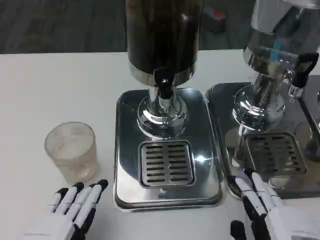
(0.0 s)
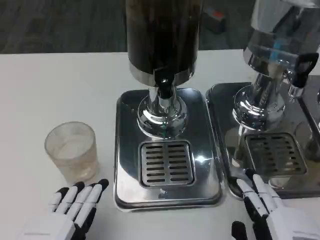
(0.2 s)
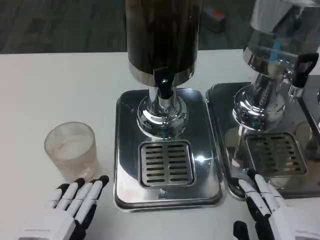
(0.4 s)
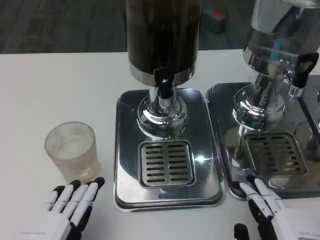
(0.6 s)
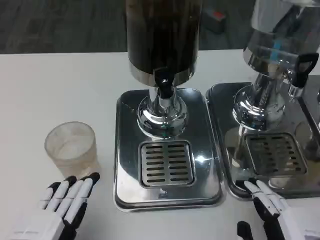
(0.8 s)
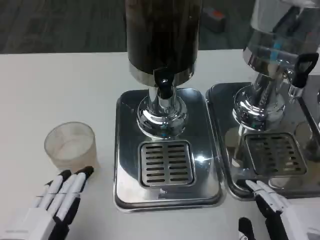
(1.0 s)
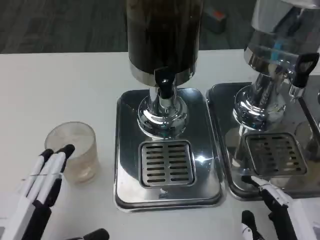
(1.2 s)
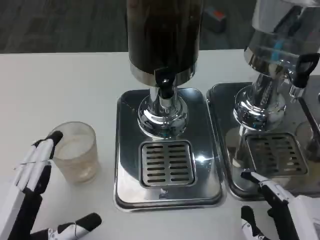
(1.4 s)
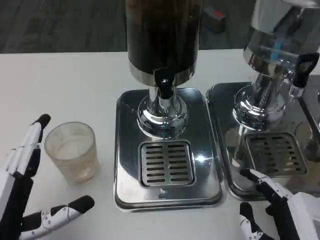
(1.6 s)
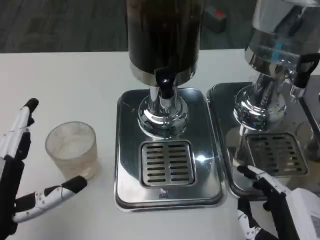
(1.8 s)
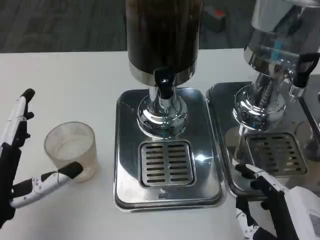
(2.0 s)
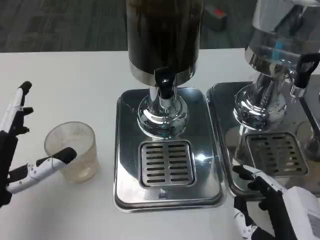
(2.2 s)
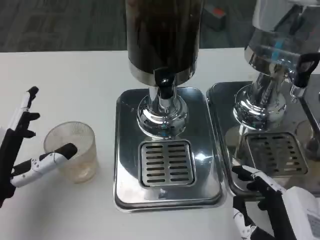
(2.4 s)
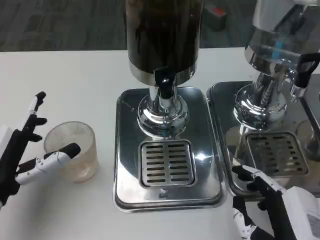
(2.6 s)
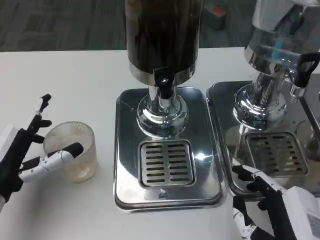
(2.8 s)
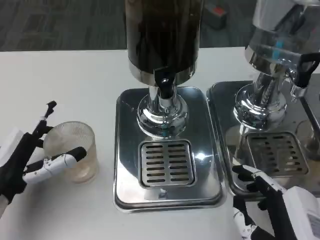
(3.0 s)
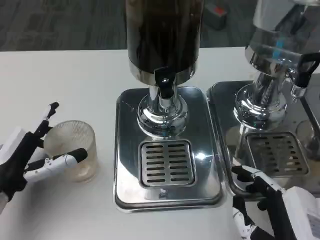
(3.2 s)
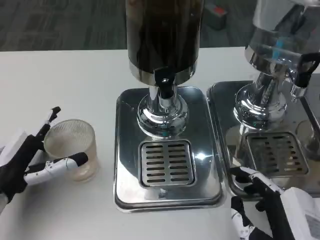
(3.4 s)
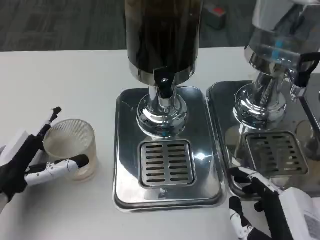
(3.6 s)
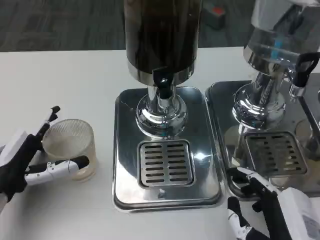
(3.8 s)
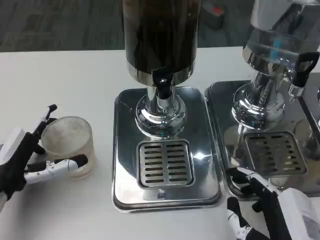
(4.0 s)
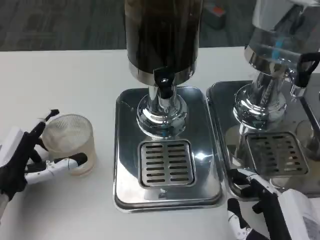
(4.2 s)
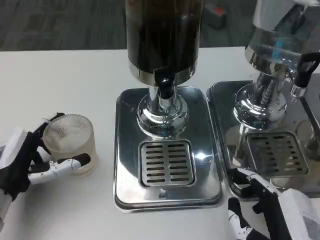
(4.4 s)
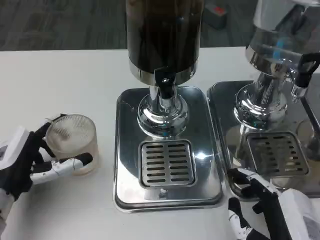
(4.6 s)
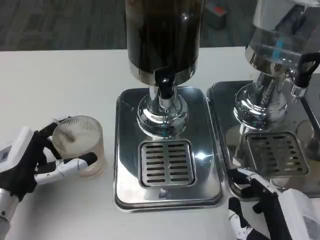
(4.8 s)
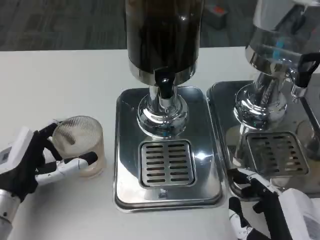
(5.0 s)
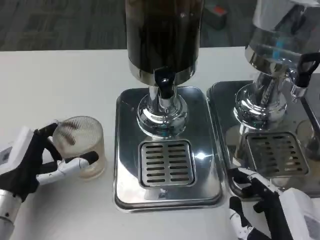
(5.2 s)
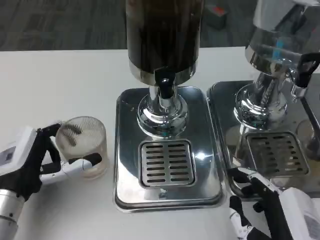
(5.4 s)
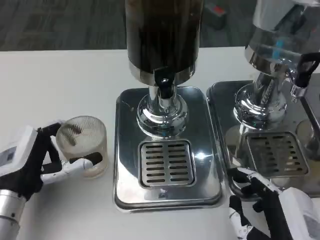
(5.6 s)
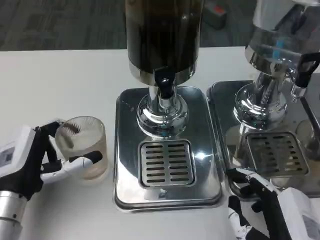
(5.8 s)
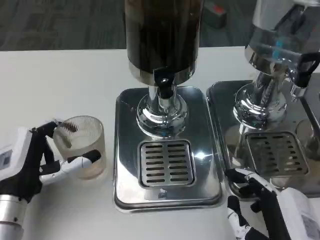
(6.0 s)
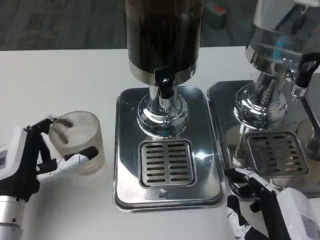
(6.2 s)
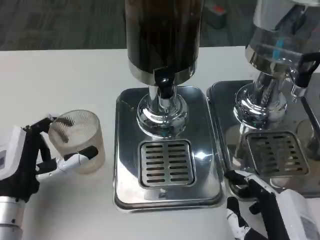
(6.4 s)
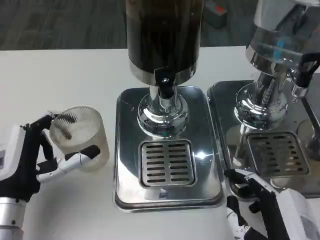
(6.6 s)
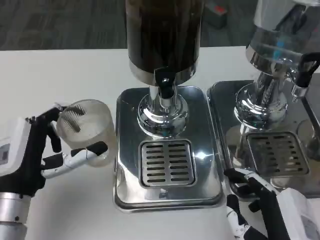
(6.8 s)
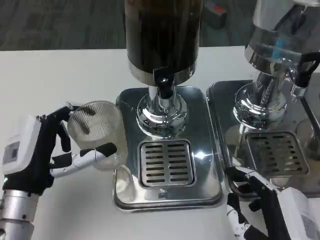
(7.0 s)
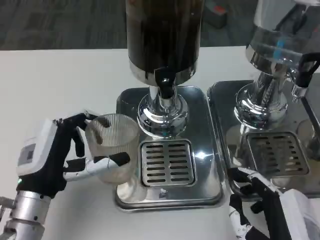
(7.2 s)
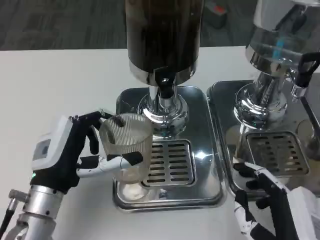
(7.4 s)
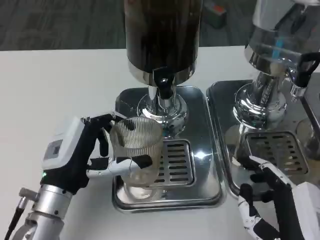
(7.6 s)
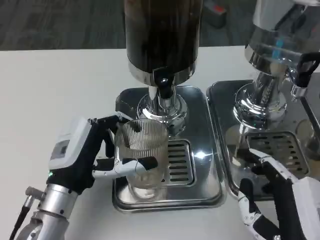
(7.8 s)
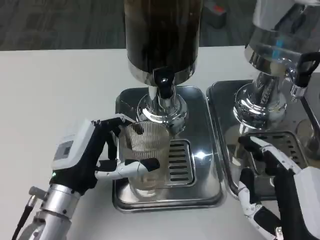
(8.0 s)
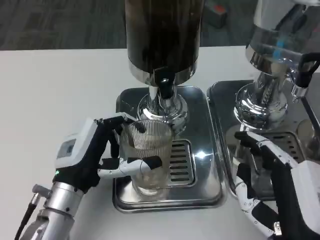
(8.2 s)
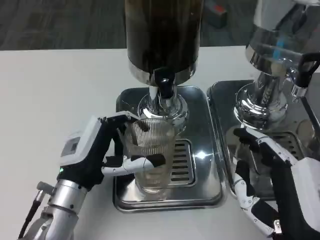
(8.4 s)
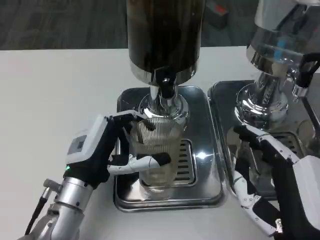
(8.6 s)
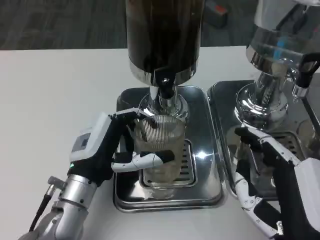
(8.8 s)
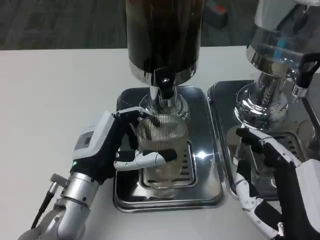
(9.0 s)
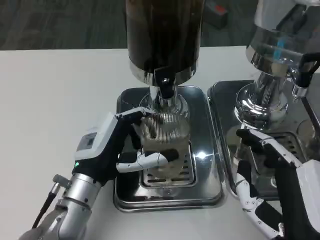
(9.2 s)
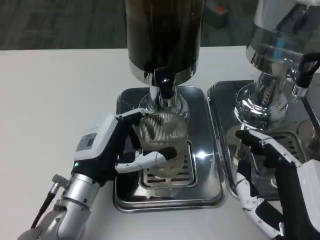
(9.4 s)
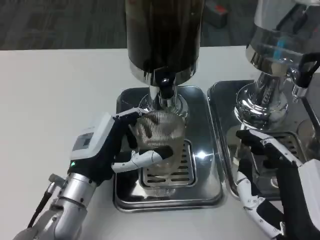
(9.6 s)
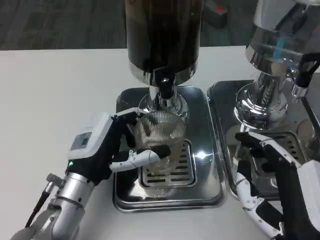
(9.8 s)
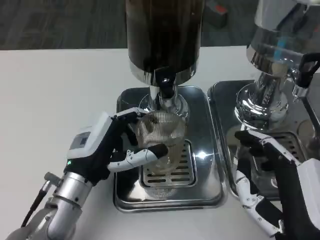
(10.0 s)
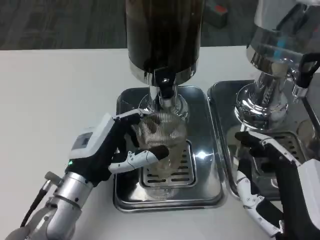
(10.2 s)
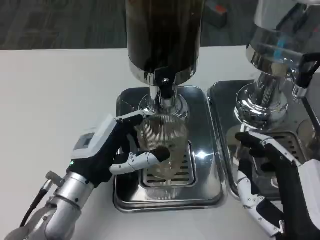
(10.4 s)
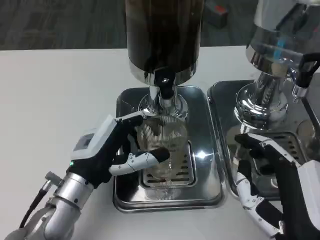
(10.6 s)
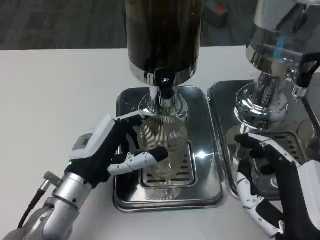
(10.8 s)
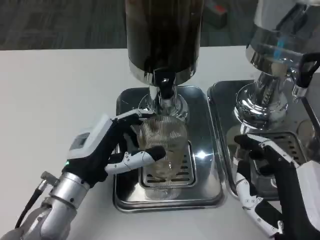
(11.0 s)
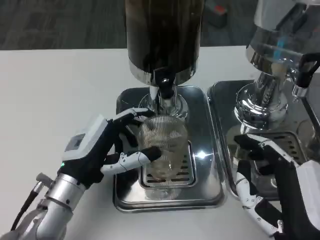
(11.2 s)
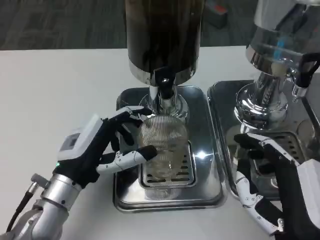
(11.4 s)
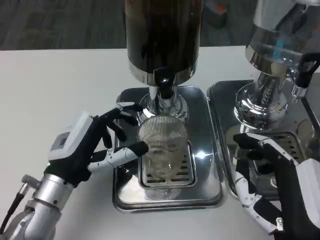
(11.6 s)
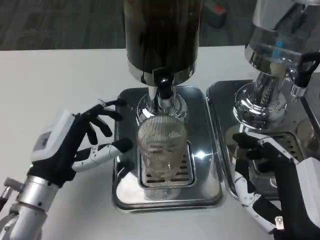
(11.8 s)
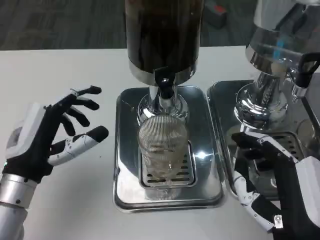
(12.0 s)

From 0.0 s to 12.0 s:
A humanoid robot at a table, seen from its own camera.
Task of the whole recording: Grasp the cup under the faucet to collect the drink, then remove the cup.
From 0.0 s to 1.6 s: The left hand ends up approximately 5 cm from where it was.
From 1.6 s to 3.0 s: The left hand shifts roughly 10 cm forward.
From 3.0 s to 6.0 s: The hands move only a little.
From 6.0 s to 7.6 s: The left hand heads to the right, covering roughly 5 cm.
From 9.0 s to 10.4 s: The hands make only small movements.
From 10.4 s to 12.0 s: The left hand heads to the left, covering approximately 5 cm.

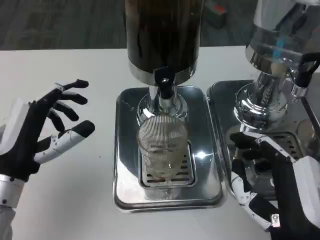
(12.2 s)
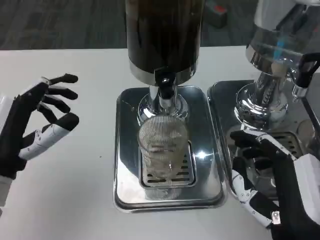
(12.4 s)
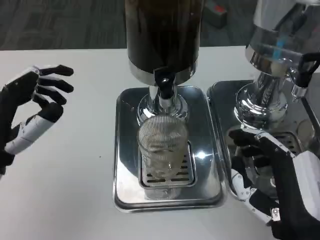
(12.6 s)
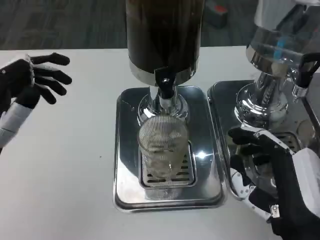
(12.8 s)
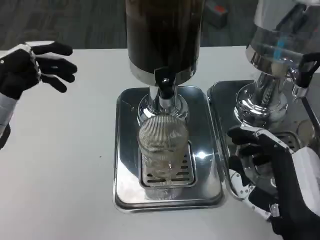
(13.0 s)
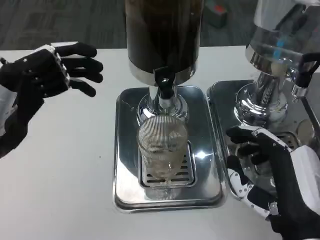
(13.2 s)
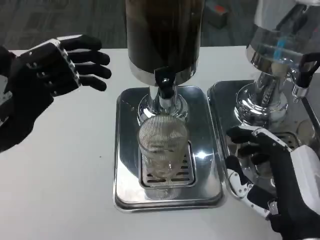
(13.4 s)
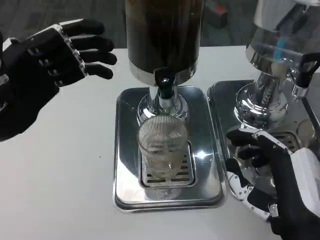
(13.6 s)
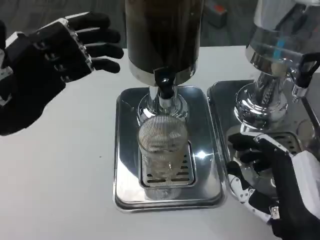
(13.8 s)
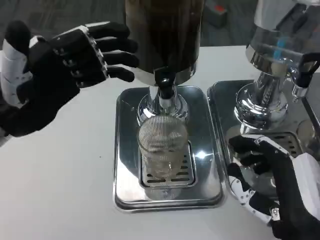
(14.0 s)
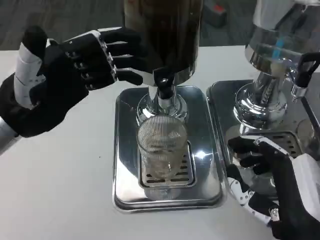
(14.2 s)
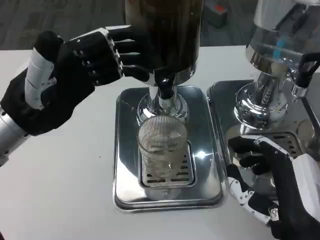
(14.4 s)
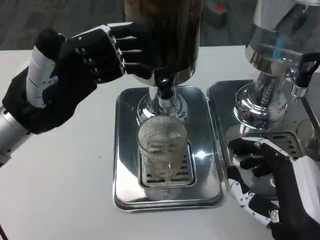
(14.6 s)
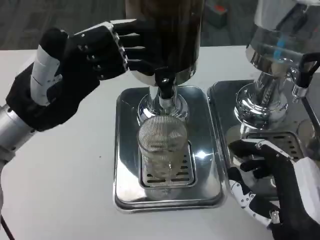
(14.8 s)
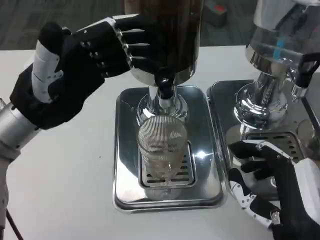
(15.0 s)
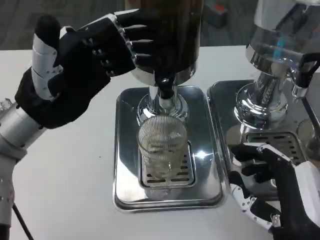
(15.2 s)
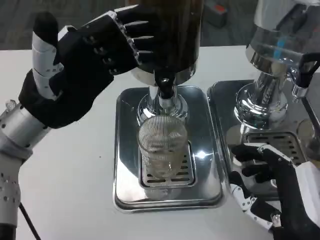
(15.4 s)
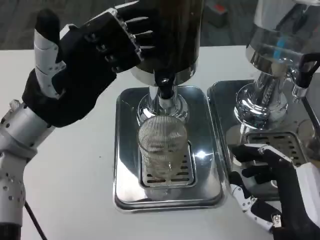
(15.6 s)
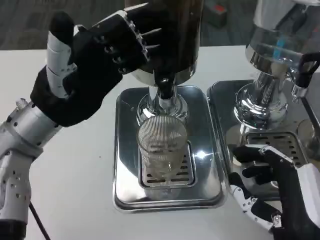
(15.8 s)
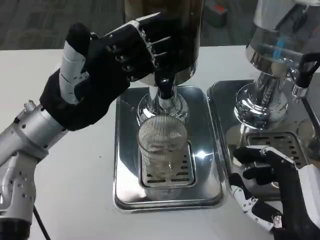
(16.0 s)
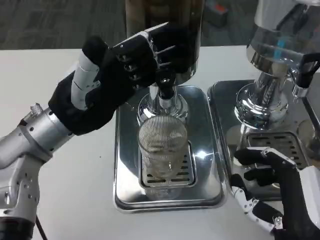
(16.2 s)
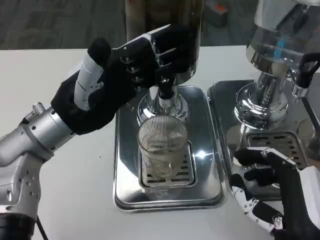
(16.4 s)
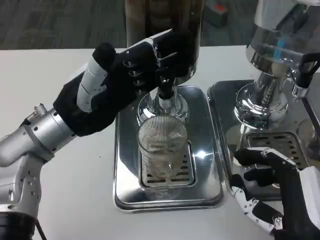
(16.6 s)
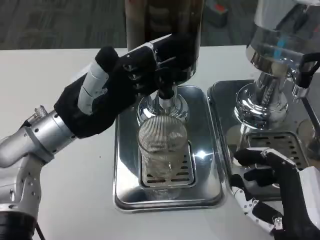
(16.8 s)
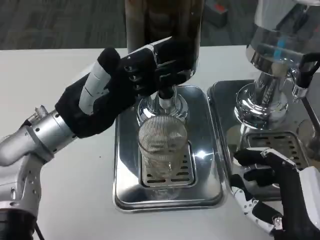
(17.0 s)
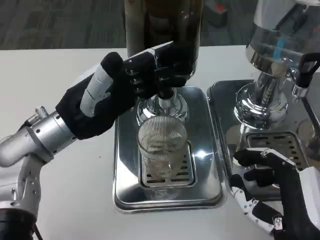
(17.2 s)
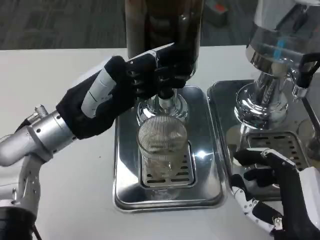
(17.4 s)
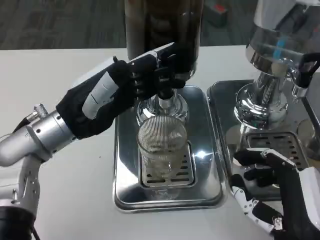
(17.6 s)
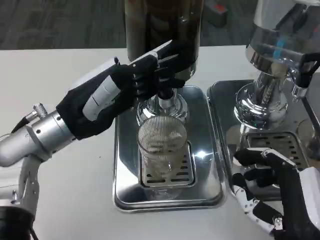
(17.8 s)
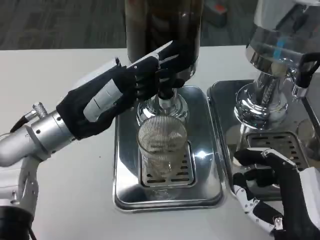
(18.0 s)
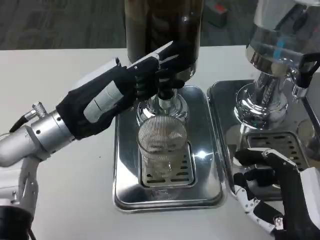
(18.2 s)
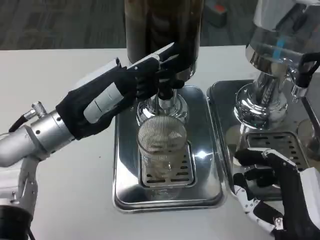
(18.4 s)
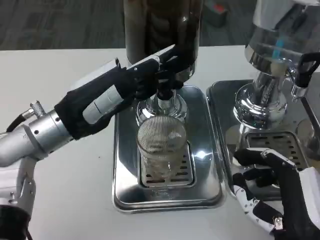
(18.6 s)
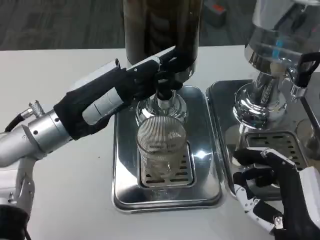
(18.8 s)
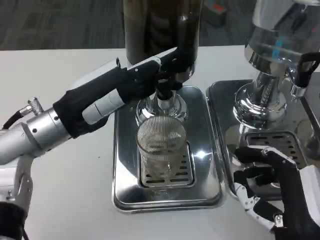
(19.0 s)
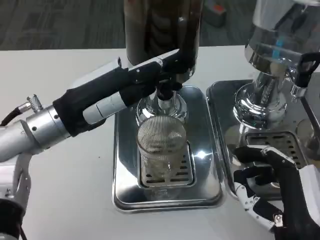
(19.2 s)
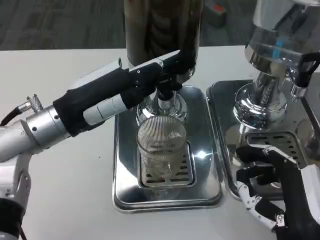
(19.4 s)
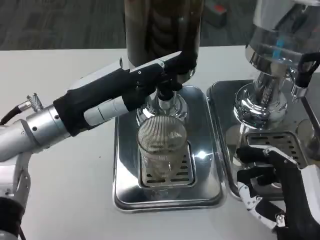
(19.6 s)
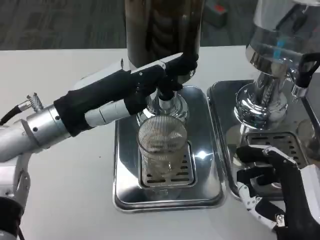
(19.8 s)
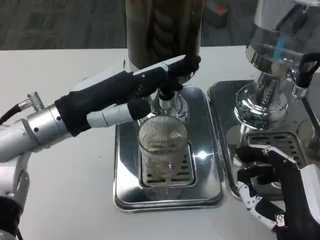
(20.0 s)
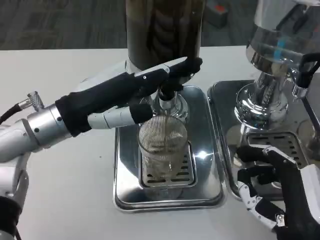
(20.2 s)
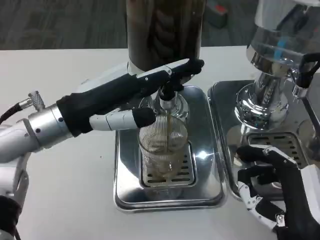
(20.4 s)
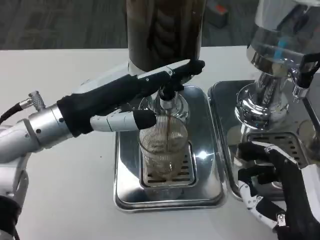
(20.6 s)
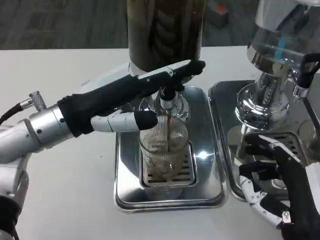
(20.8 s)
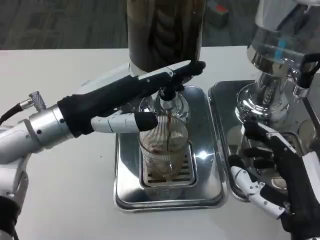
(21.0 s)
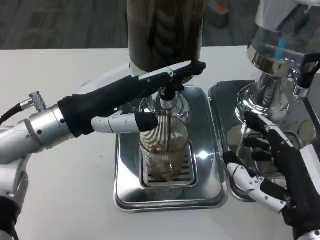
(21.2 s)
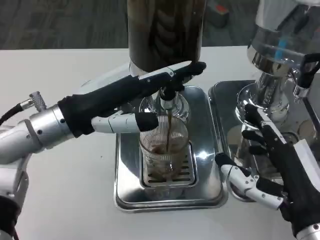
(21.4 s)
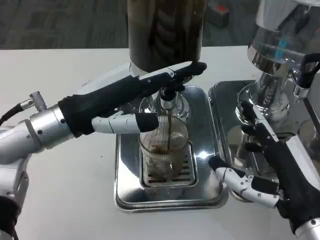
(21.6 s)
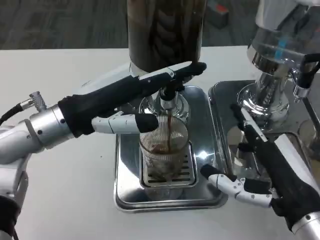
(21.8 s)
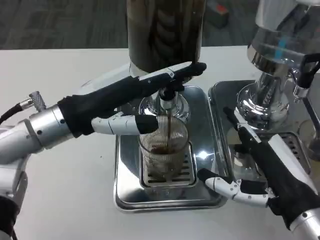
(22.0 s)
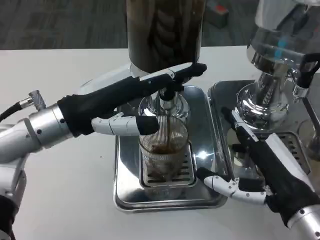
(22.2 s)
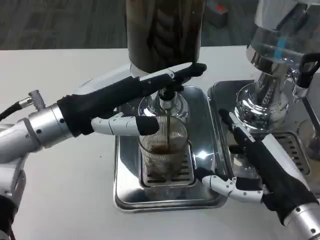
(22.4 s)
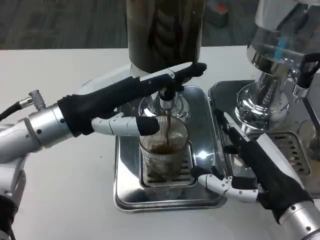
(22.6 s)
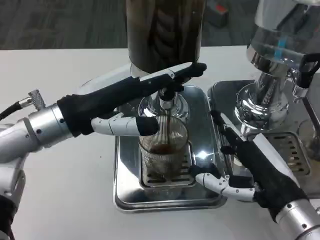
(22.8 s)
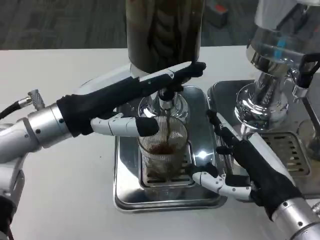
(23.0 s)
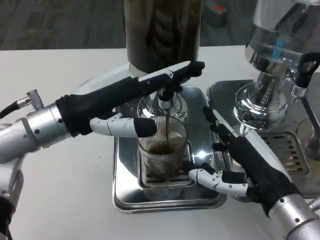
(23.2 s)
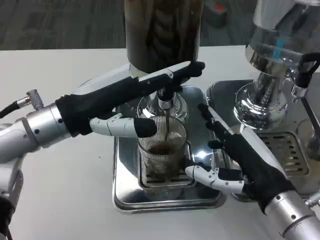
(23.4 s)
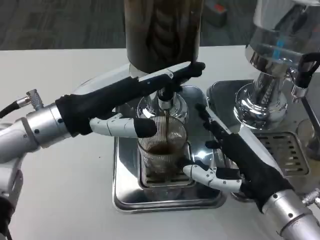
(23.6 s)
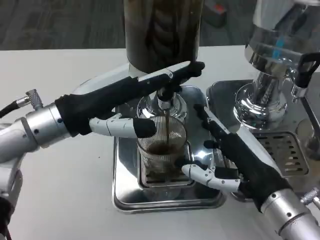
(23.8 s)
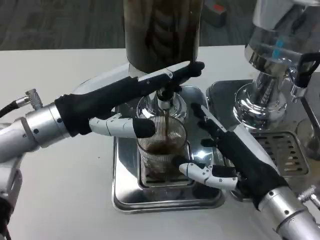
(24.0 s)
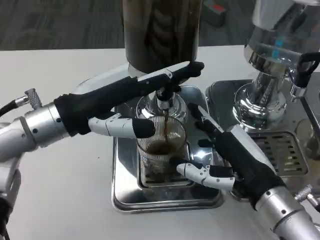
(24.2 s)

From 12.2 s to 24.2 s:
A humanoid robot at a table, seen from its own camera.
Task of the whole recording: Grasp the cup under the faucet to collect the drink, then remove the cup.
From 12.2 s to 13.8 s: The left hand is displaced upward by approximately 10 cm.
From 13.8 s to 15.2 s: The left hand moves roughly 5 cm.
From 16.6 s to 18.2 s: There are only small adjustments of the hands.
From 18.2 s to 19.8 s: The hands make only small movements.
From 21.2 s to 22.6 s: The hands move only a little.
